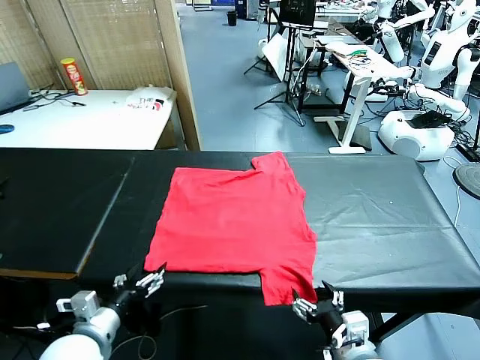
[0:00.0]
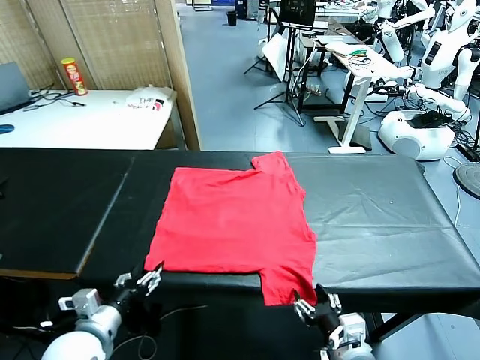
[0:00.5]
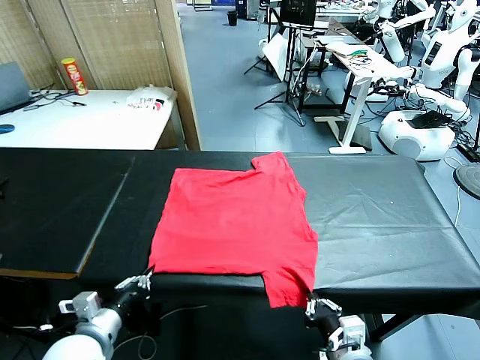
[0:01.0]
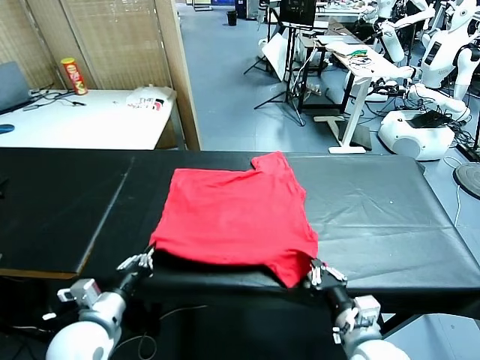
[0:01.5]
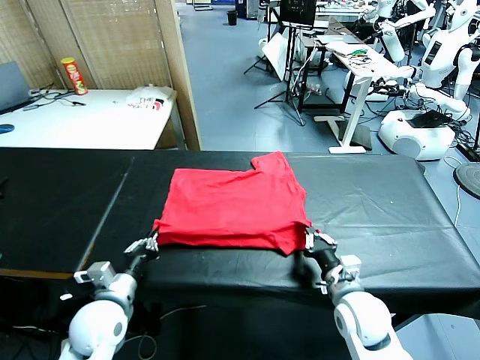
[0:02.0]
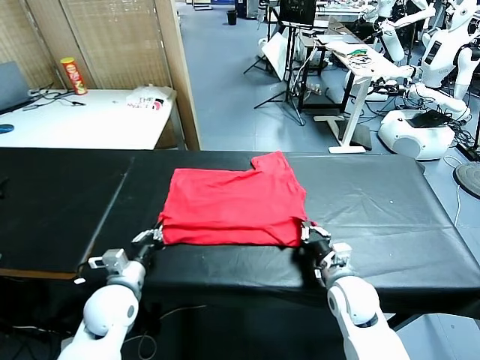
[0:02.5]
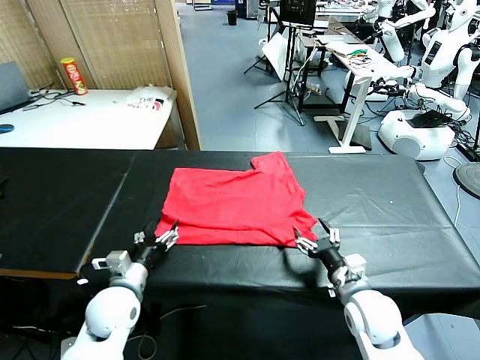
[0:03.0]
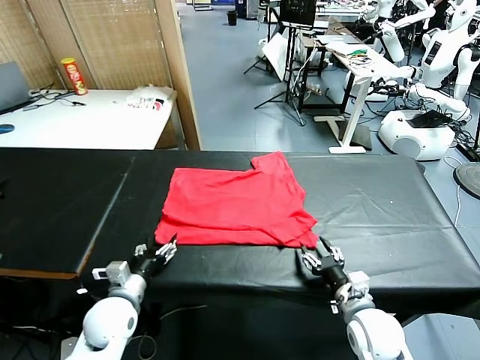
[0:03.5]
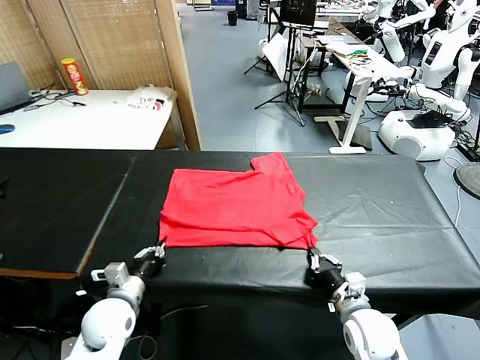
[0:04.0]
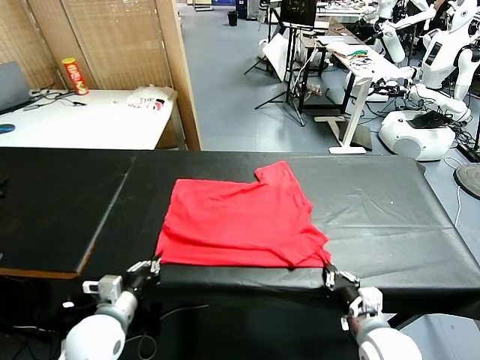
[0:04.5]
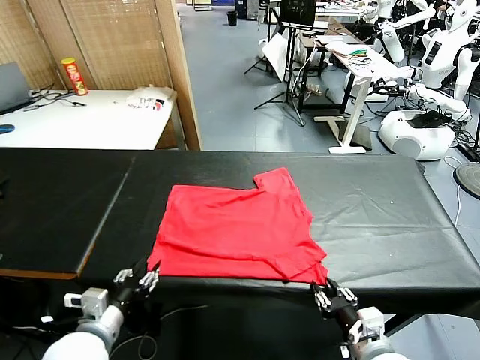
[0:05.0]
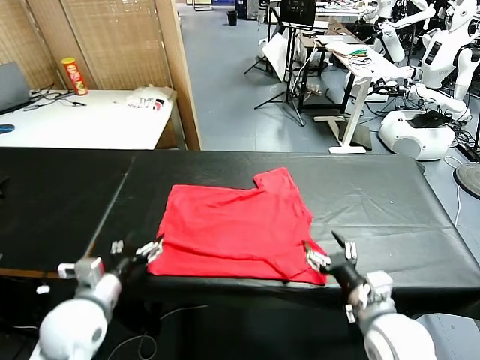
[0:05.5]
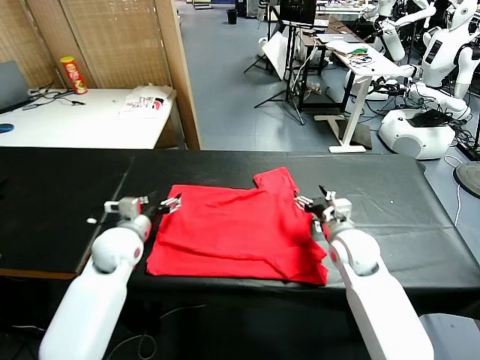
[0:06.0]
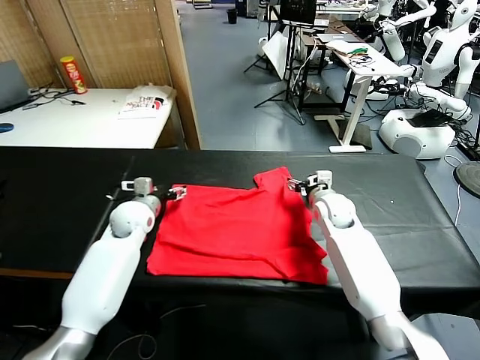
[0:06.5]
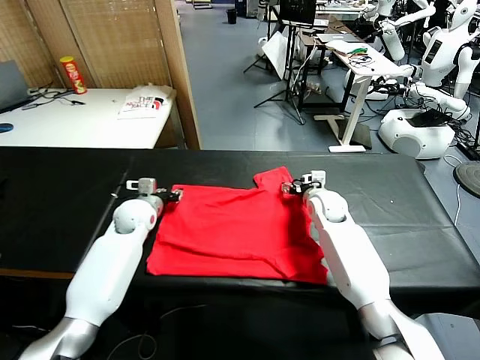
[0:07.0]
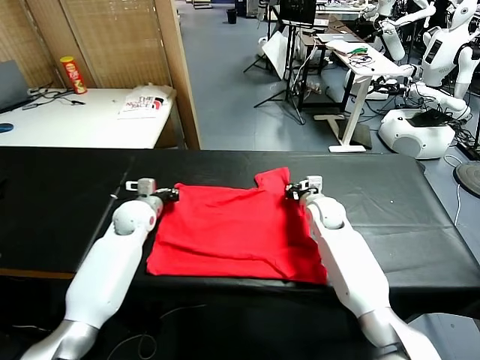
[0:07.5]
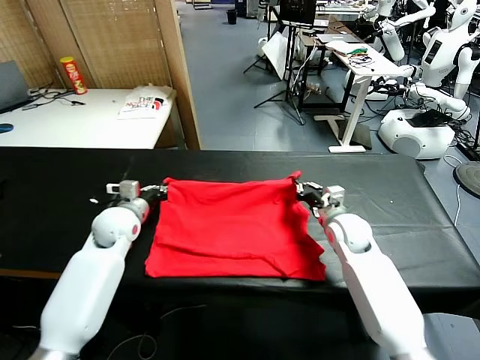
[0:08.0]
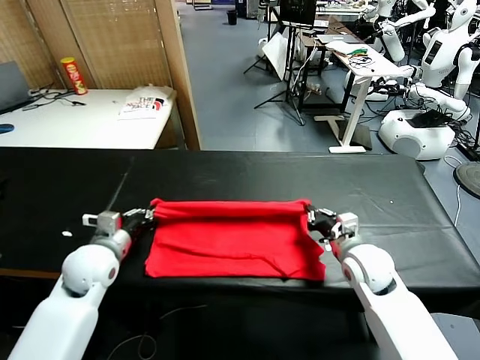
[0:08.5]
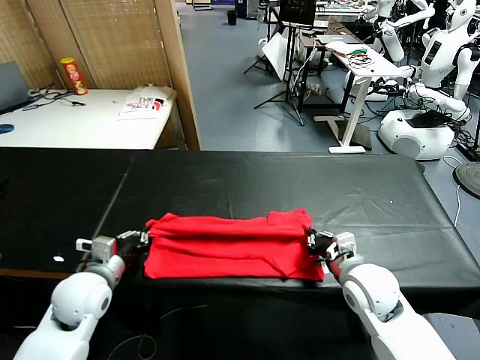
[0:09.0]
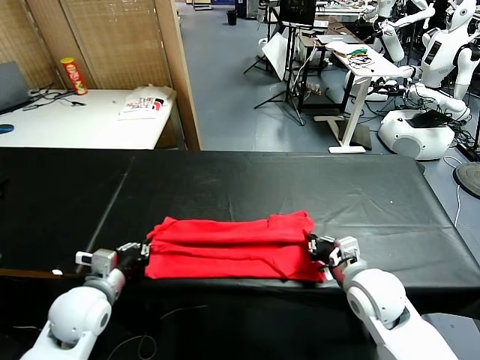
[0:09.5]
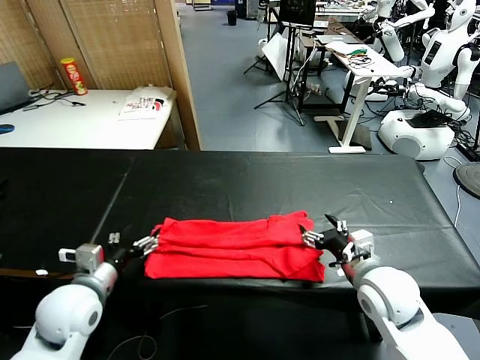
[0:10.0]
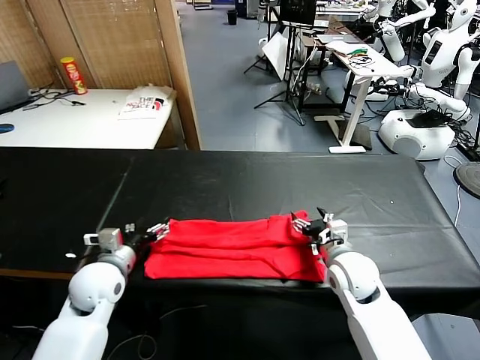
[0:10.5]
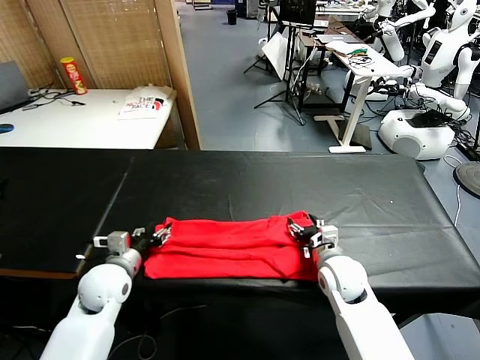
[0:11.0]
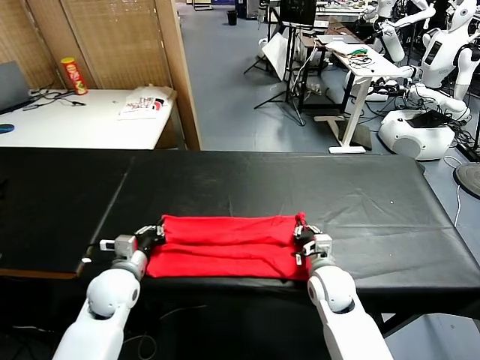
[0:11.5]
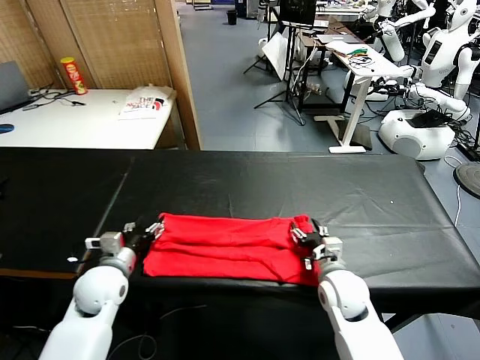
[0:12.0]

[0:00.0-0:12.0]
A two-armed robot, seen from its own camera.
Task of the whole recording: fold and organize the clothes.
Step, 0:00.0 to 0:00.5: use both grippers simultaneously to clamp the lower edge of the clothing fabric.
Step, 0:01.0 to 0:02.5: use both grippers to drag the lower edge of the fabric forward and fold it over the upper edge.
Step, 0:03.5 to 0:05.0: Drag the clothes downward with both gripper.
Step, 0:05.5 to 0:07.5: use both grippers simultaneously to clamp the upper edge of the clothing fabric.
Step, 0:08.0 to 0:10.0: use both grippers to drag the upper edge of the fabric backward and fold it over the lower edge.
0:02.0 to 0:04.0: The left gripper opens, then closes again. Meanwhile the right gripper is displaced backward by about 5 cm, and opens and closes again.
0:04.0 to 0:06.0: The left gripper is displaced forward and upward by about 15 cm, and opens its fingers; the right gripper moves forward, approximately 25 cm, and opens its fingers.
0:06.0 to 0:08.0: The left gripper goes forward and returns, some 10 cm each way, and closes its fingers; the right gripper heads backward, covering about 5 cm, and closes its fingers.
0:08.0 to 0:10.0: The left gripper goes about 20 cm backward, and opens. Meanwhile the right gripper travels backward by some 10 cm, and opens its fingers.
0:10.0 to 0:12.0: The right gripper shifts some 5 cm downward, and closes and opens again; the left gripper shifts roughly 10 cm downward and forward, and closes and opens again.

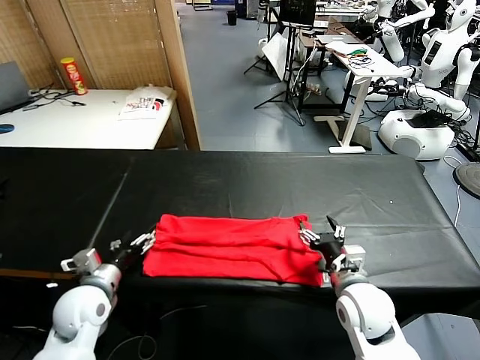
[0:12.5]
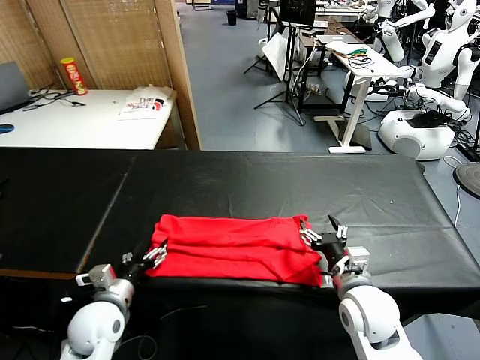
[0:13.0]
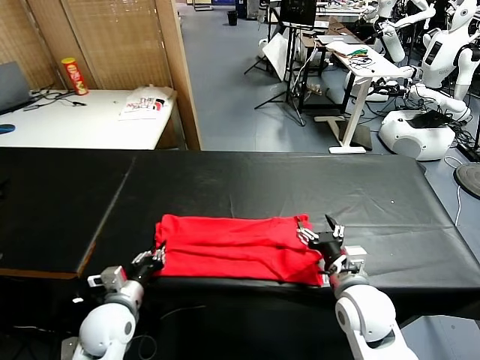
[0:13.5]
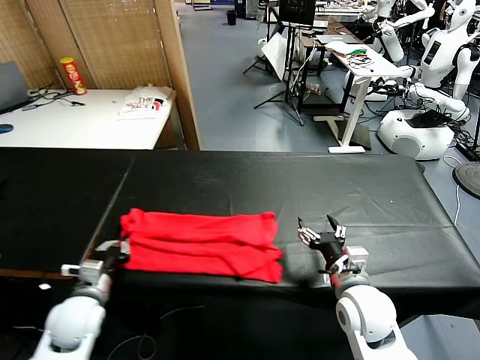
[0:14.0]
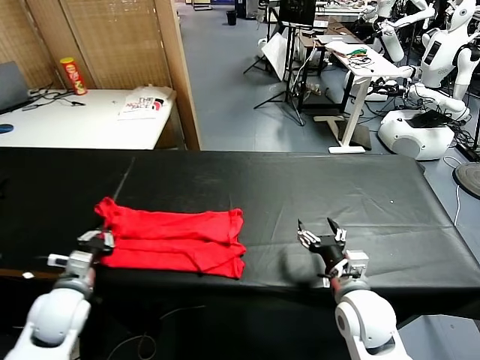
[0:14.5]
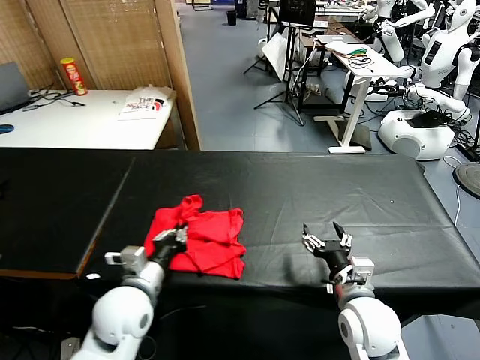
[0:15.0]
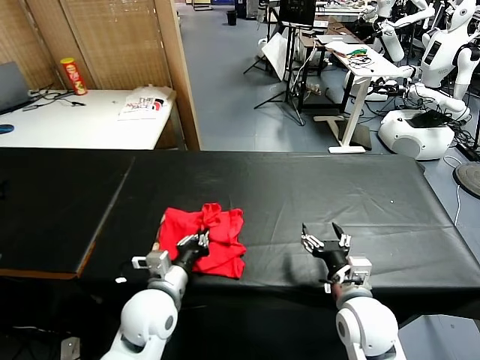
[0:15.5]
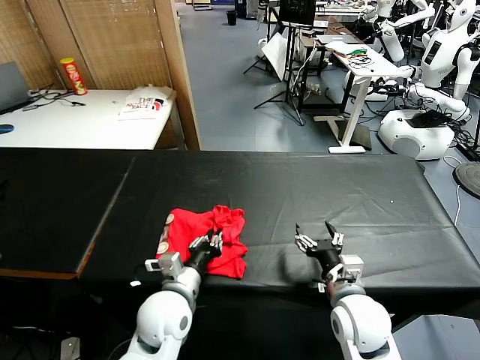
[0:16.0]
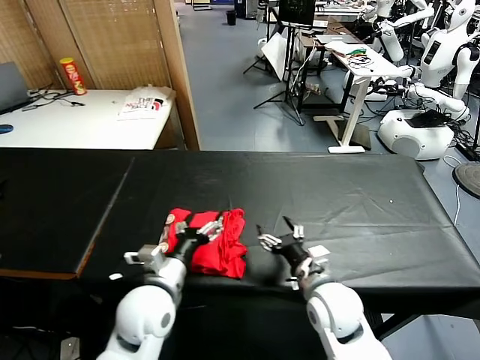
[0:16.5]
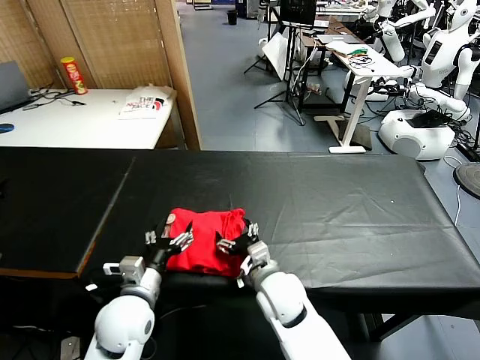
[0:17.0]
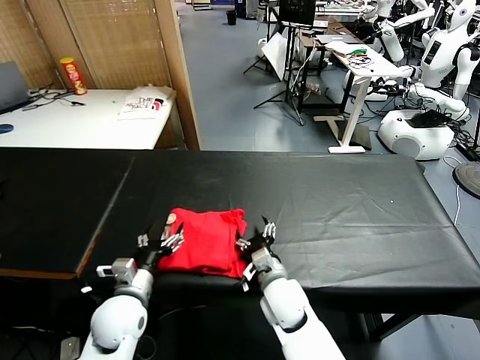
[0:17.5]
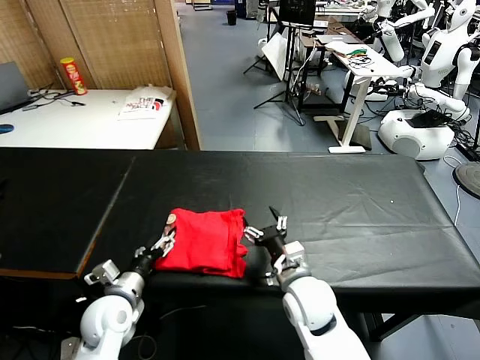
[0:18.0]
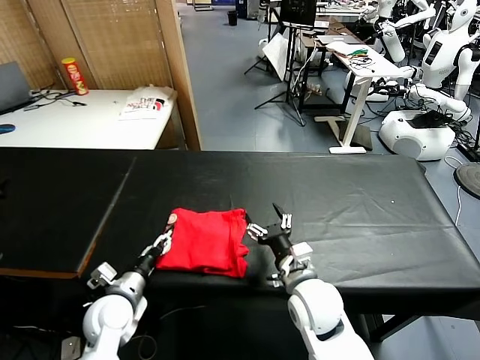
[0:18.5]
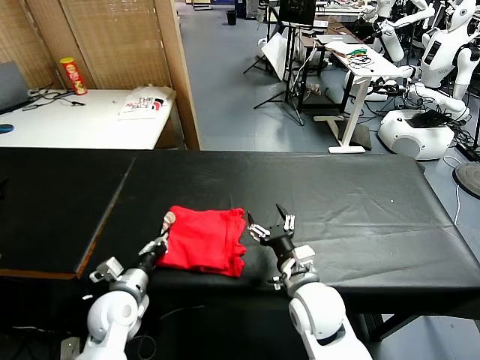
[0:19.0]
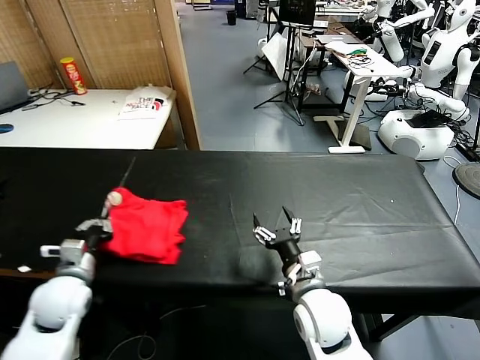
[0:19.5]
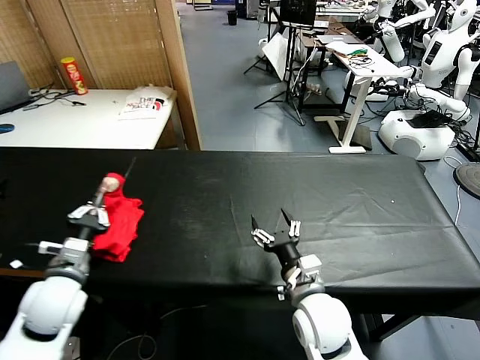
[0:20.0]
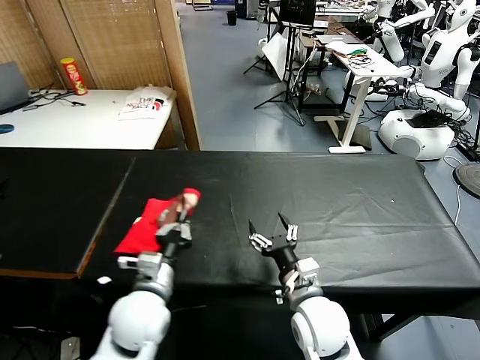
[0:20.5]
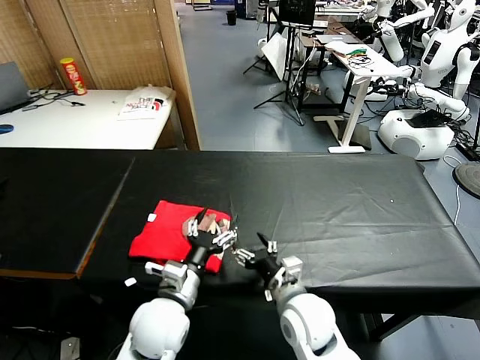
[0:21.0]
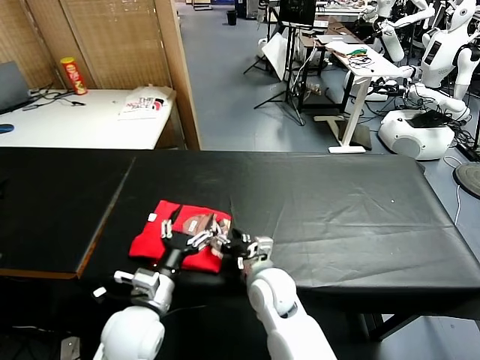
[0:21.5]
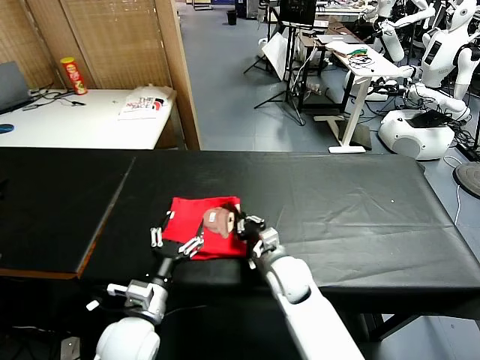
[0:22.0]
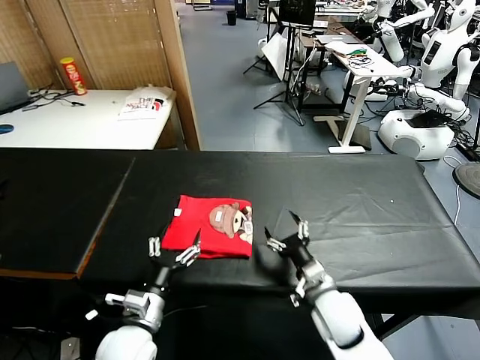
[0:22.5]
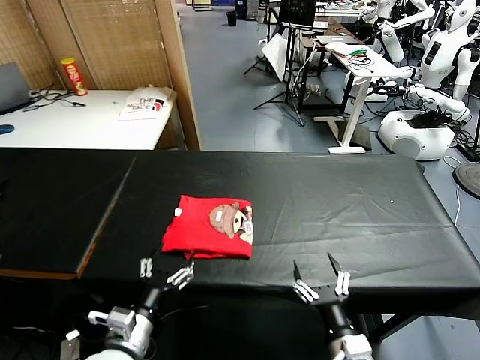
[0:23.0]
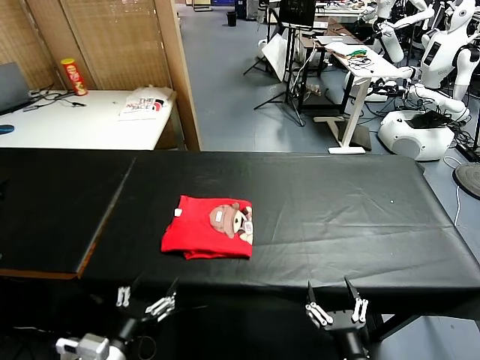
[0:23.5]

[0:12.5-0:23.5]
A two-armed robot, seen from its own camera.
Task of the whole recording: fold and organize the clothes.
Step, 0:14.0 to 0:16.0: use the left gripper to drag the left edge of the fabric to the left and folds it over the right edge.
Step, 0:16.5 to 0:21.0: Flip the folded clothes over with left gripper.
Step, 0:21.5 to 0:22.0: Drag the clothes to the center of the table.
0:12.5 to 0:14.5: The left gripper closes its fingers.
0:14.5 to 0:16.0: The left gripper travels to the right by roughly 20 cm.
0:16.0 to 0:18.0: The right gripper heads to the left, covering about 10 cm, while the left gripper is displaced to the left by approximately 15 cm, and opens.
0:18.0 to 0:20.0: The left gripper moves upward and to the left, about 10 cm, and closes its fingers.
0:20.0 to 0:21.5: The right gripper is displaced to the left and forward by approximately 10 cm; the left gripper moves to the right, about 15 cm, and opens up.
0:21.5 to 0:23.5: The left gripper travels backward and to the left by some 15 cm; the right gripper moves backward and to the right, approximately 30 cm, and closes, then opens again.
